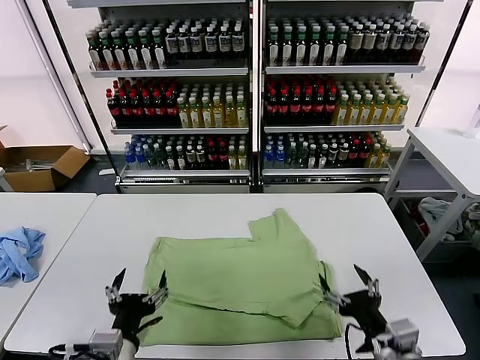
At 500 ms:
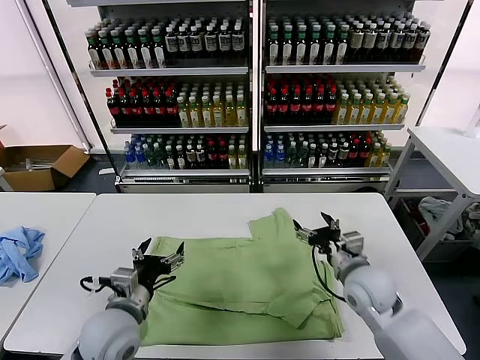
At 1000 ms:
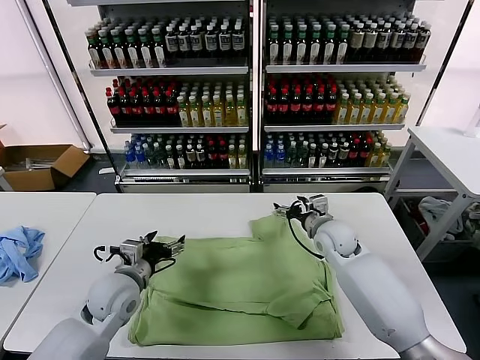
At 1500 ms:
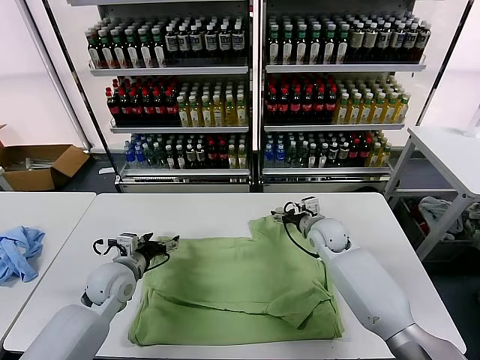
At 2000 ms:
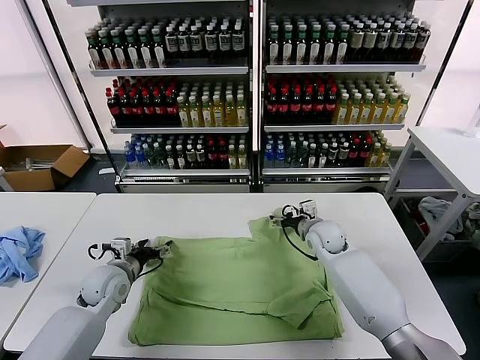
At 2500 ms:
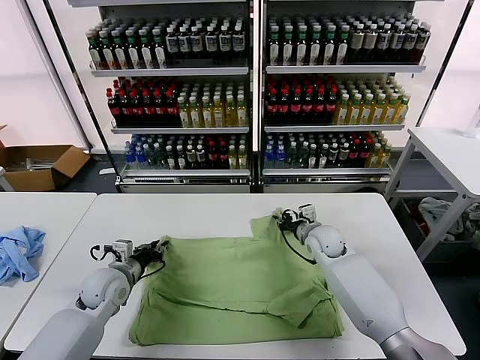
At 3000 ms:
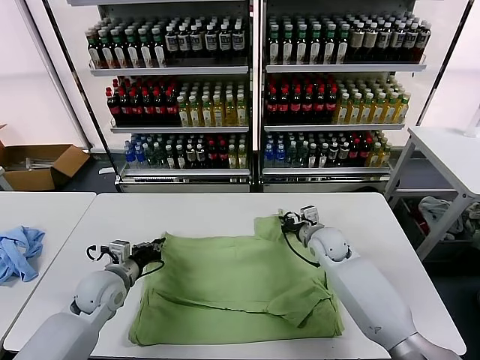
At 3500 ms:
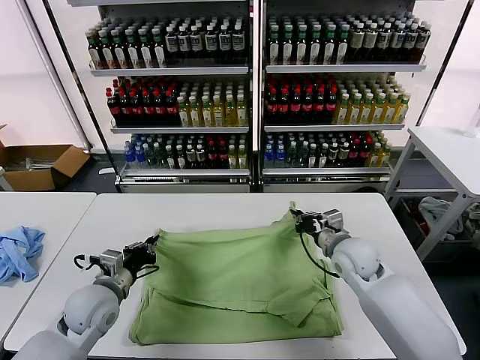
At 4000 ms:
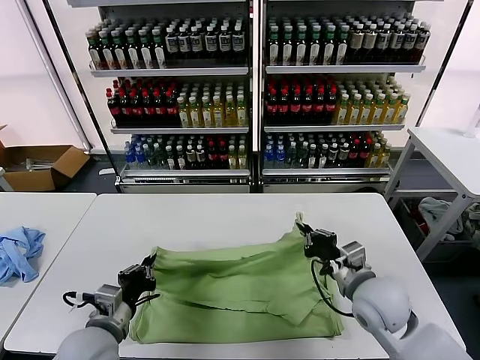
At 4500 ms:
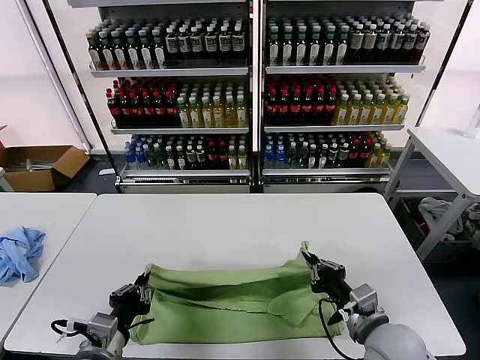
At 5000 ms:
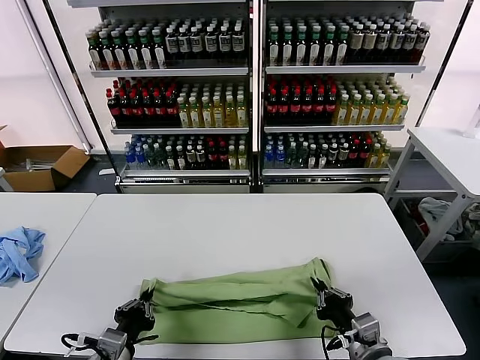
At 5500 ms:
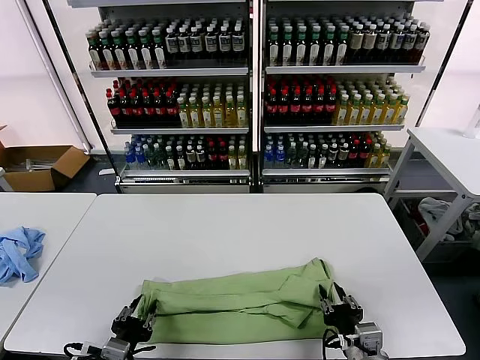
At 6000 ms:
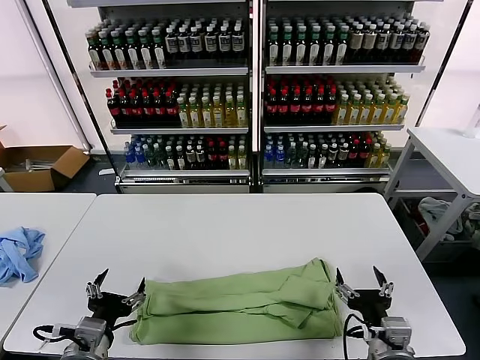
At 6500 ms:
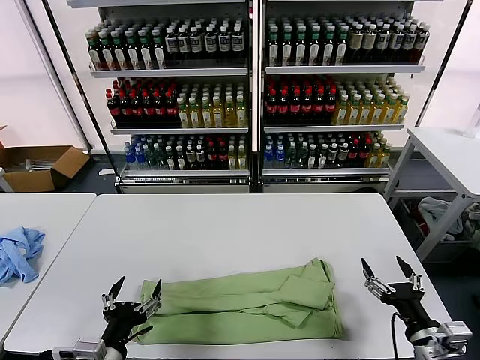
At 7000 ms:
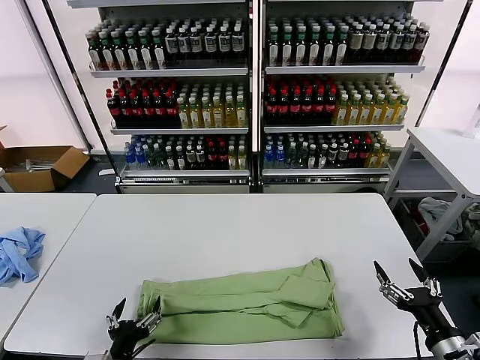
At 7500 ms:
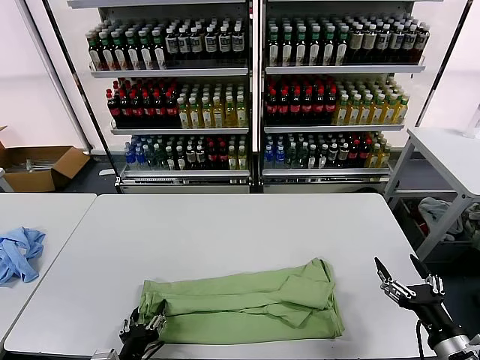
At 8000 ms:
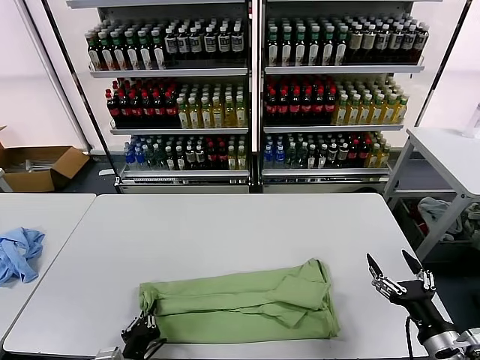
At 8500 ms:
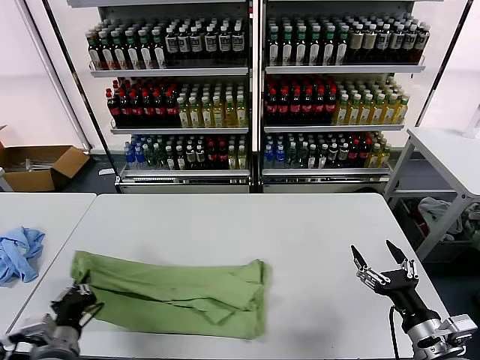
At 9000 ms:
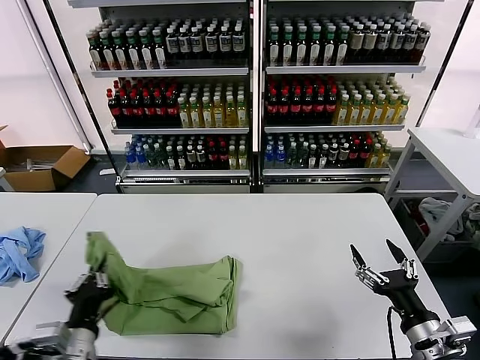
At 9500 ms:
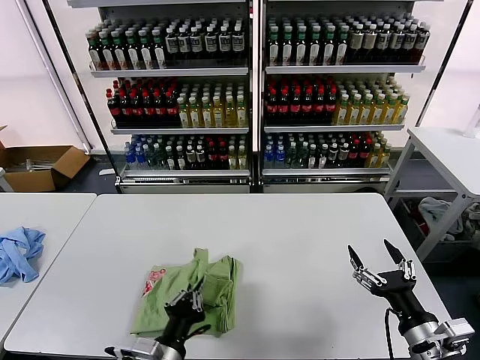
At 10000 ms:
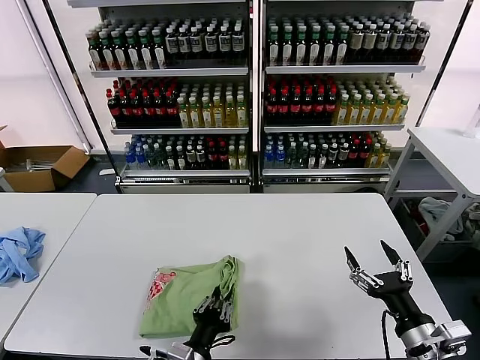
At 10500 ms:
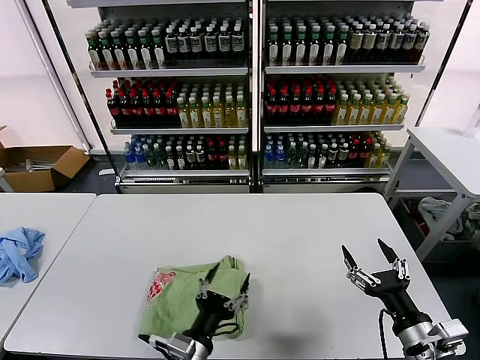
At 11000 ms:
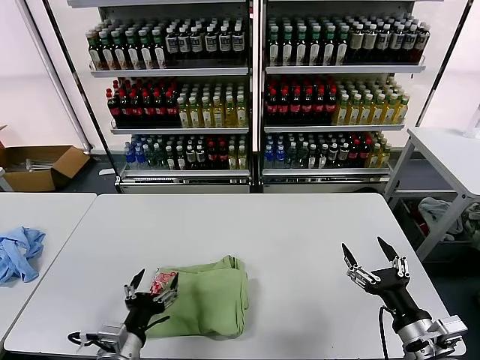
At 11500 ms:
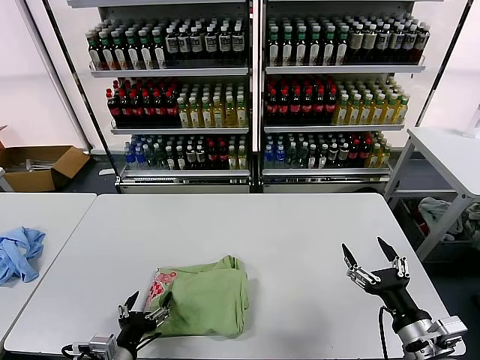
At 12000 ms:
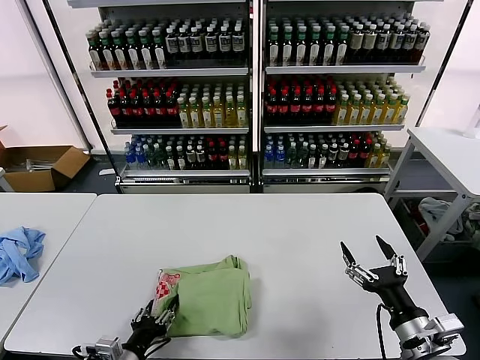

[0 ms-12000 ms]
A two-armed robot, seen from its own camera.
Task of the whole recording: fold and organize the clothes.
Step, 0 ms to 2500 ms: use both grippers simultaneously to clamp the upper edge of the clothing fabric.
Step, 3000 ms to 5500 ms: use both grippers to drag the upper edge of the fabric backward and fold it over the lower edge.
Step, 6000 ms to 8000 ms: use the left gripper to clamp the left edge of the fabric.
Step, 8500 ms to 10000 ms: use the left gripper to drag the left edge of the fabric to the left and folds it over the right edge.
0 ms to 2000 ms: The left gripper moves forward and to the left, some 25 cm. The right gripper moves forward, roughly 30 cm.
2000 ms to 4000 ms: Both grippers travel together backward, roughly 20 cm. The right gripper closes, while the left gripper closes up.
4000 ms to 6000 ms: The right gripper moves backward, some 10 cm, and opens. Meanwhile the left gripper heads backward, covering some 5 cm, and opens up.
6000 ms to 8000 ms: The right gripper travels to the right by about 10 cm. The left gripper moves downward, some 10 cm, and closes.
8000 ms to 10000 ms: The left gripper heads to the right, covering about 10 cm.
10000 ms to 12000 ms: The left gripper is displaced to the left by approximately 15 cm, and opens its fingers.

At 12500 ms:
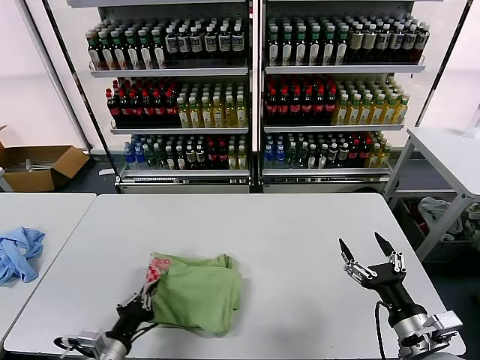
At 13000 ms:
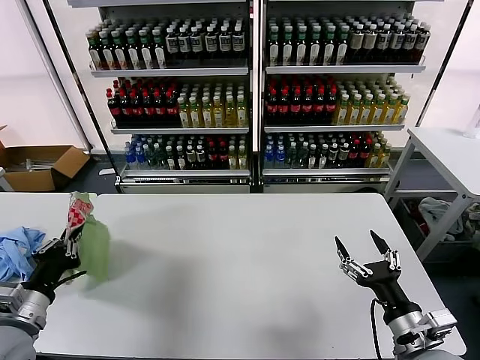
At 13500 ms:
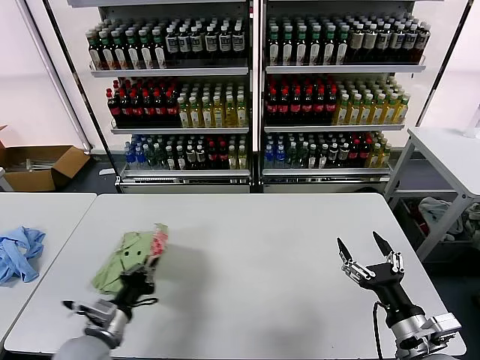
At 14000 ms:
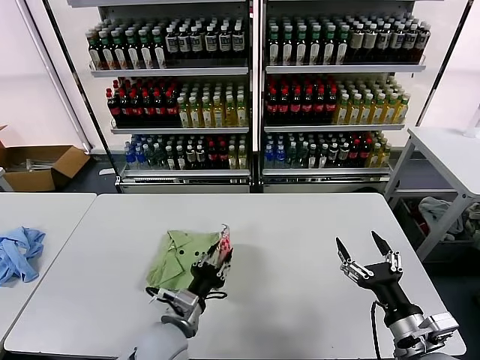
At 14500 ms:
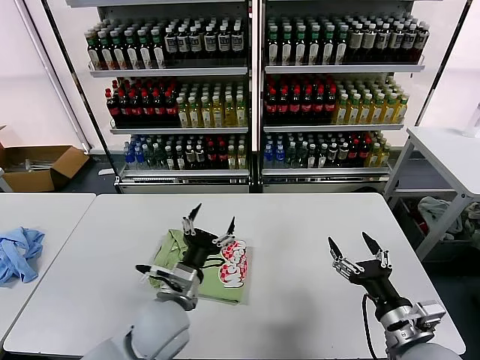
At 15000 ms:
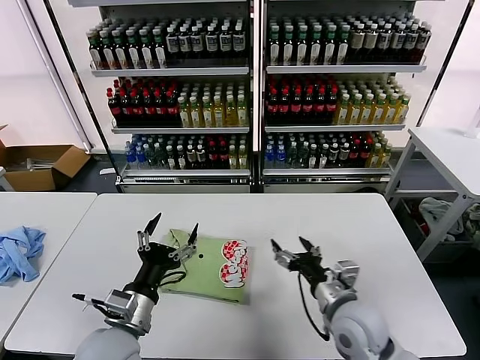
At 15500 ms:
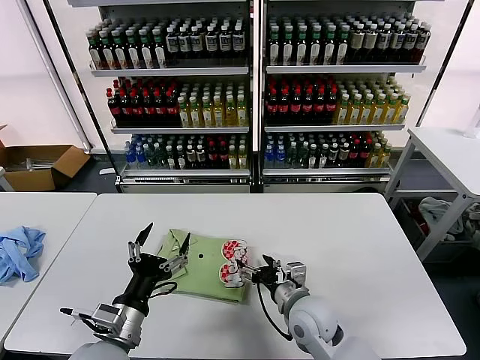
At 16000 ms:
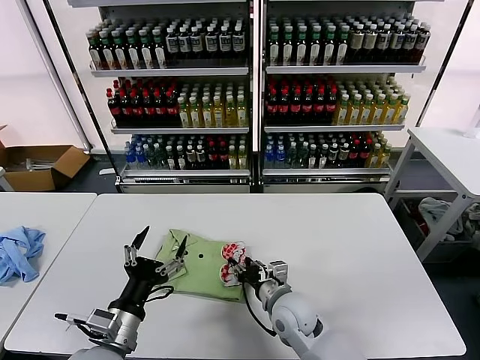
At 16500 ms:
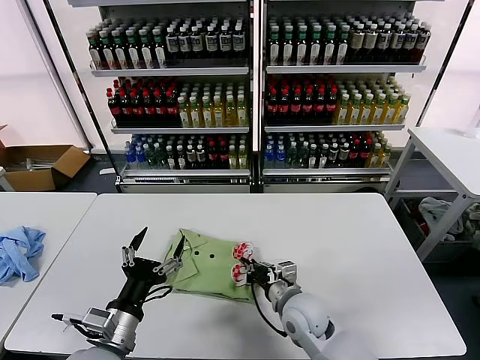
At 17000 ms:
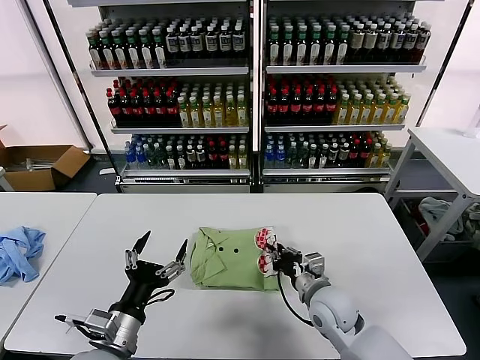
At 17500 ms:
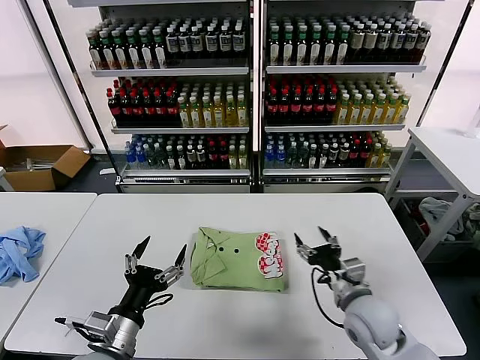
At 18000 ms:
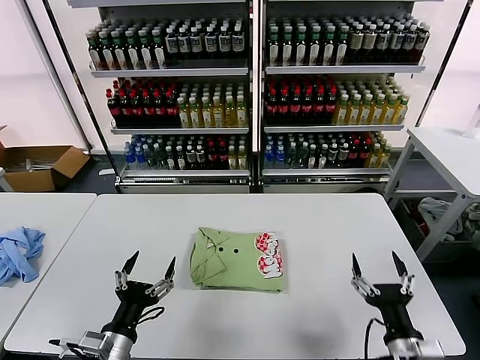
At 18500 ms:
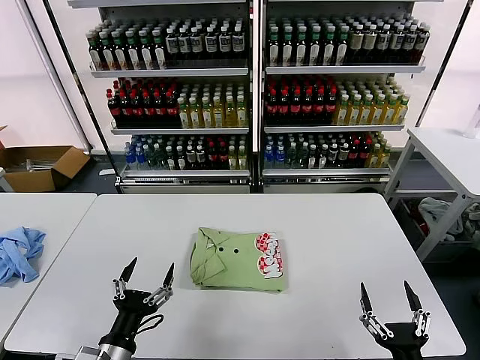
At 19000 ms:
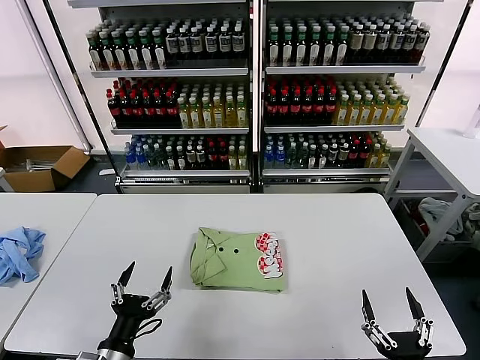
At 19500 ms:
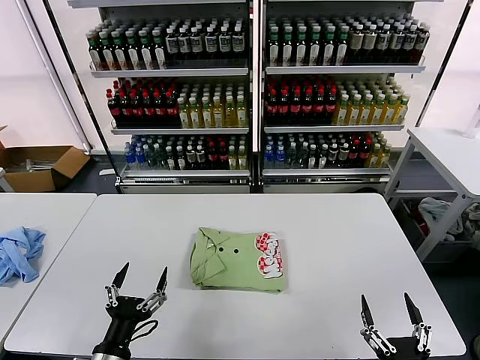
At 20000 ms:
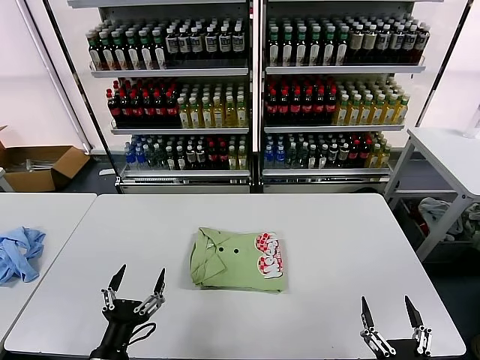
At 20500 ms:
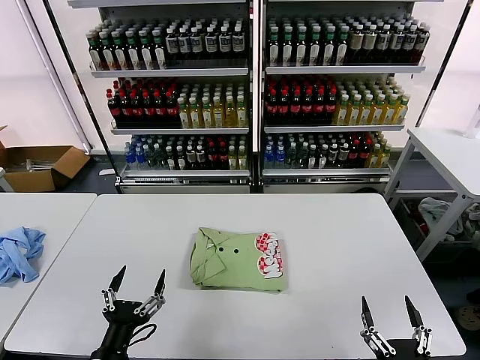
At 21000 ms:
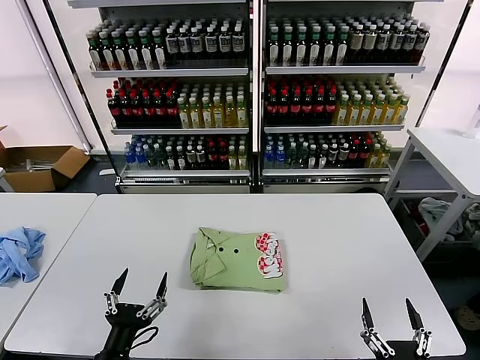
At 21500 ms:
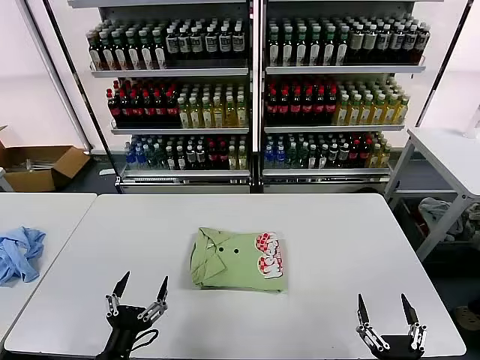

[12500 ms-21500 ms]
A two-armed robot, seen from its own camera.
Task of the whole recording: fold and organize the clothes.
Step, 14500 ms to 17000 ms: Drag the clothes to the center of the table.
12500 ms to 14500 ms: The left gripper shifts about 20 cm to the right, forward and upward, and opens up.
14500 ms to 17000 ms: The left gripper goes some 15 cm to the left and backward, while the right gripper travels forward, to the left and downward by about 20 cm, and closes up.
17000 ms to 19500 ms: The left gripper goes roughly 10 cm downward and backward, while the right gripper moves backward and to the right, approximately 30 cm, and opens up.
19500 ms to 21500 ms: The grippers make only small movements.
